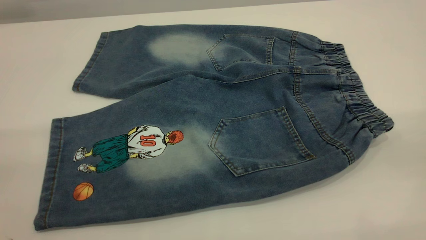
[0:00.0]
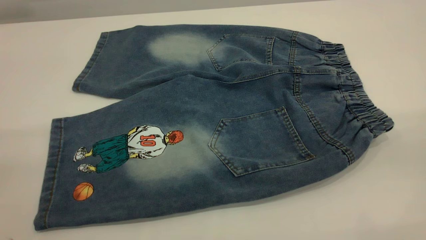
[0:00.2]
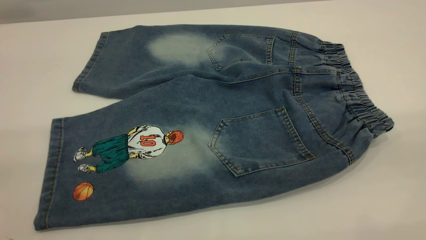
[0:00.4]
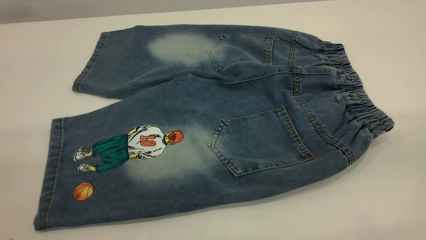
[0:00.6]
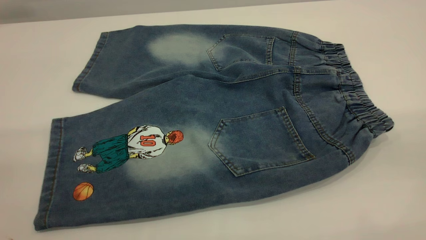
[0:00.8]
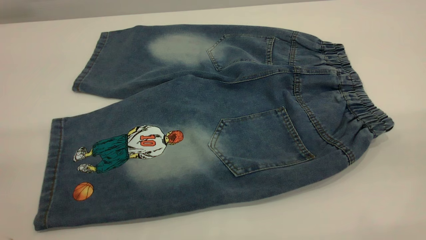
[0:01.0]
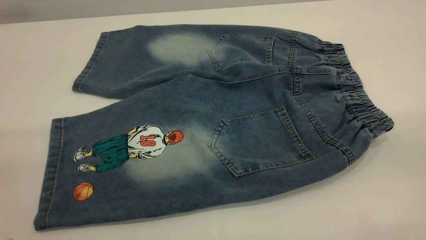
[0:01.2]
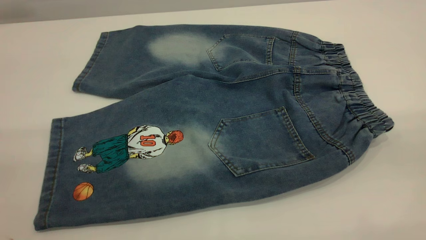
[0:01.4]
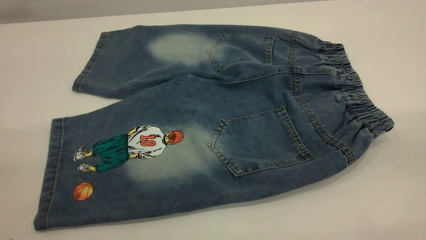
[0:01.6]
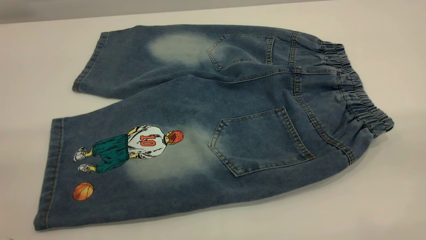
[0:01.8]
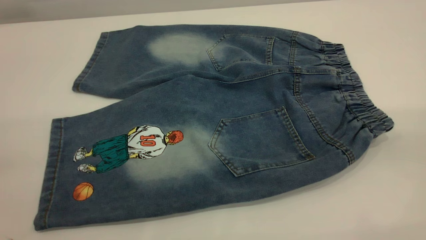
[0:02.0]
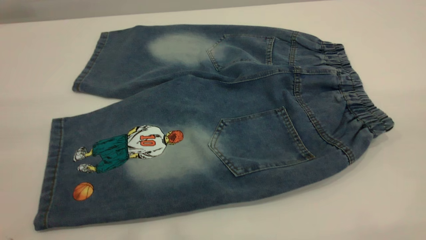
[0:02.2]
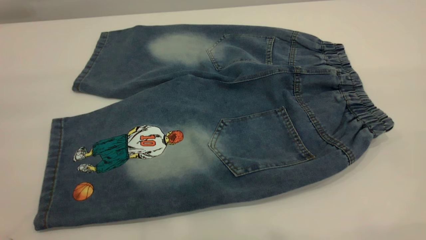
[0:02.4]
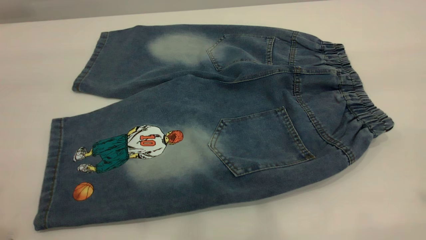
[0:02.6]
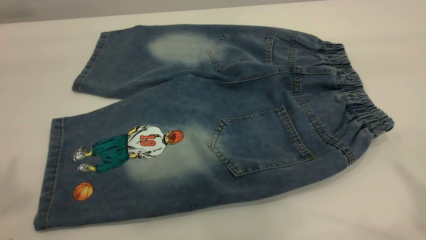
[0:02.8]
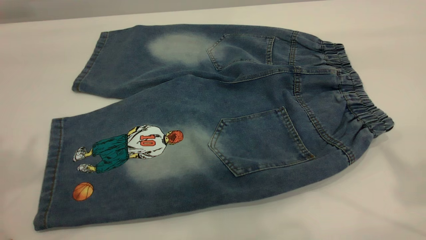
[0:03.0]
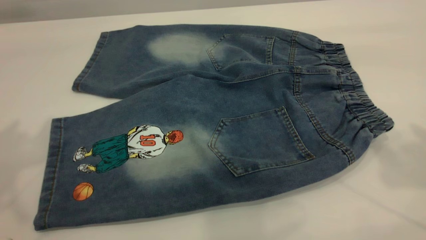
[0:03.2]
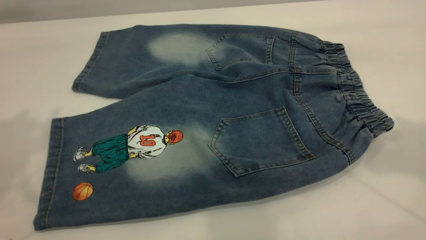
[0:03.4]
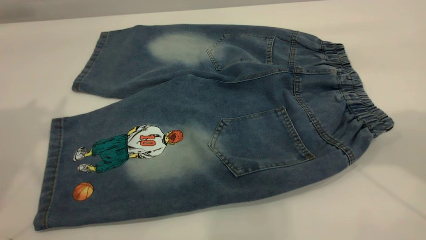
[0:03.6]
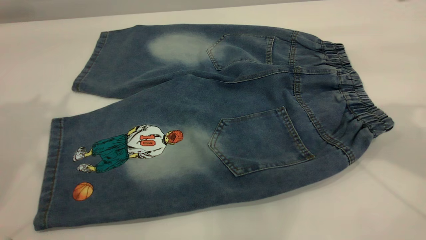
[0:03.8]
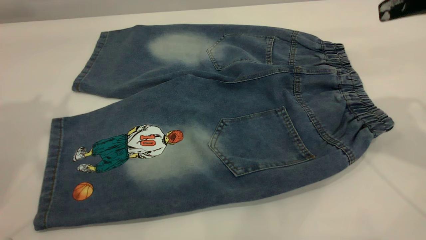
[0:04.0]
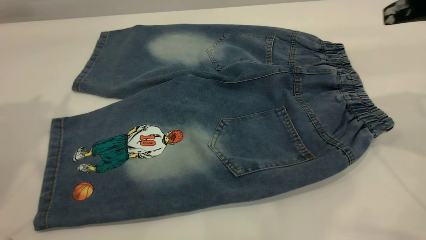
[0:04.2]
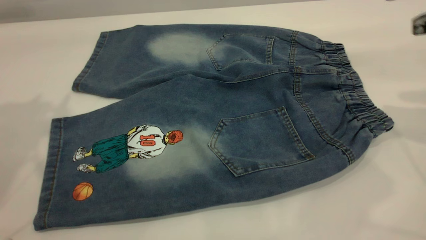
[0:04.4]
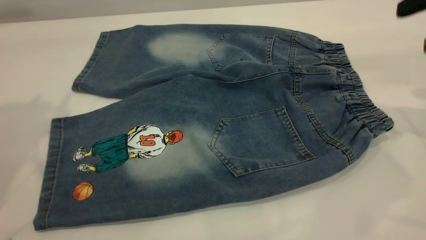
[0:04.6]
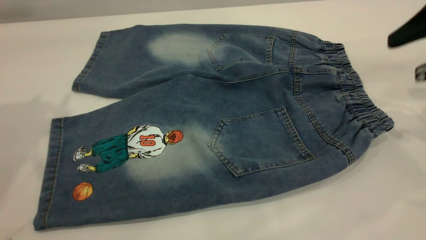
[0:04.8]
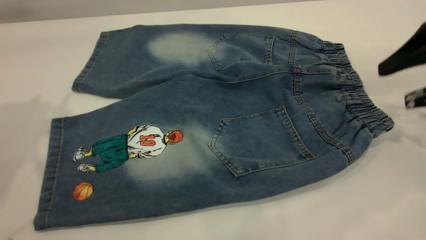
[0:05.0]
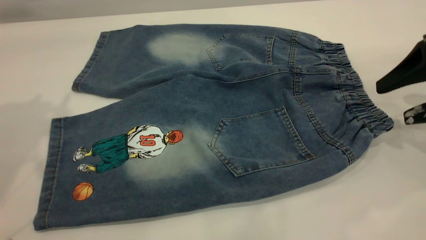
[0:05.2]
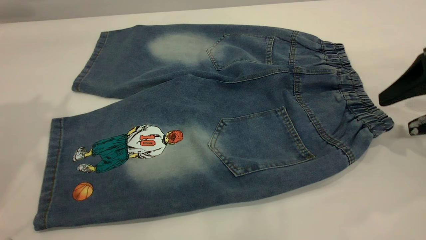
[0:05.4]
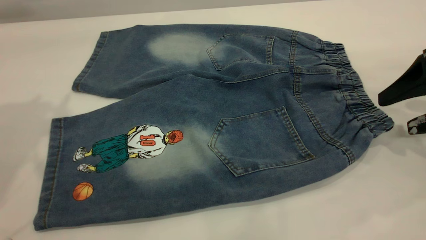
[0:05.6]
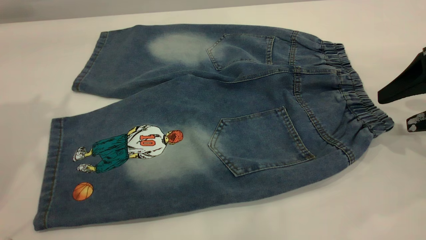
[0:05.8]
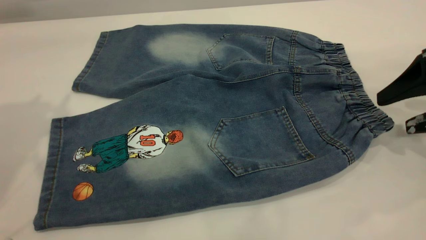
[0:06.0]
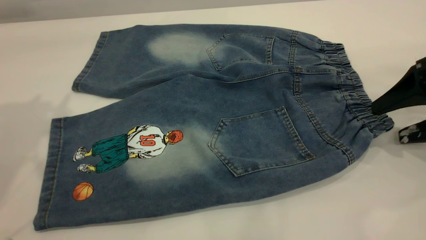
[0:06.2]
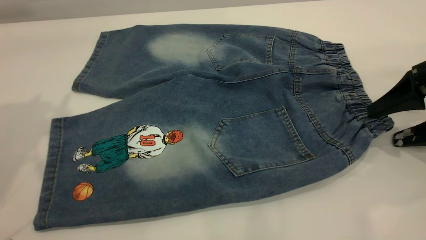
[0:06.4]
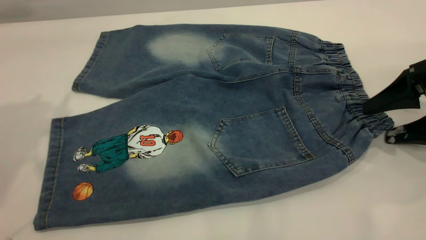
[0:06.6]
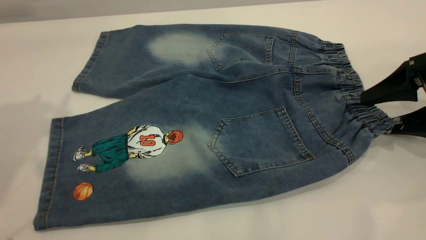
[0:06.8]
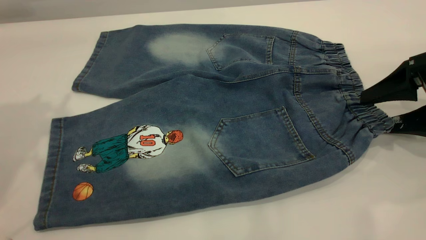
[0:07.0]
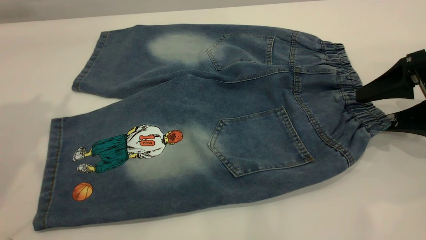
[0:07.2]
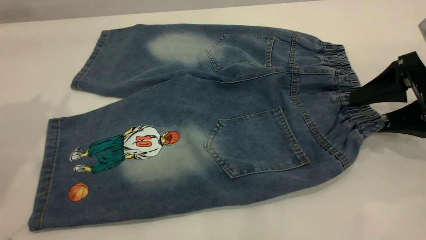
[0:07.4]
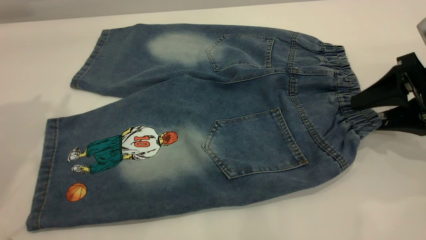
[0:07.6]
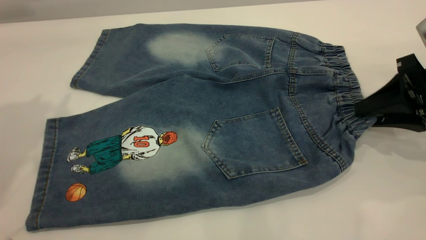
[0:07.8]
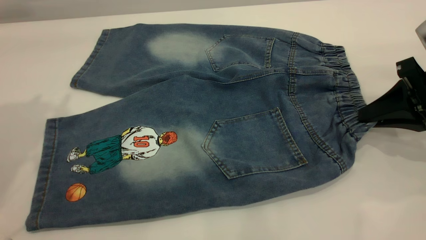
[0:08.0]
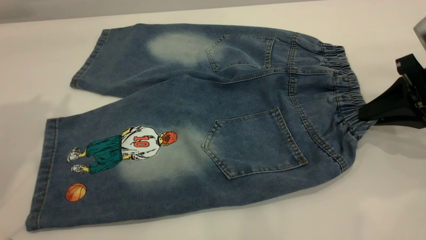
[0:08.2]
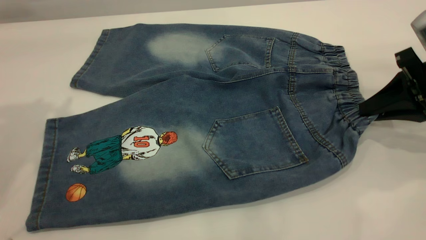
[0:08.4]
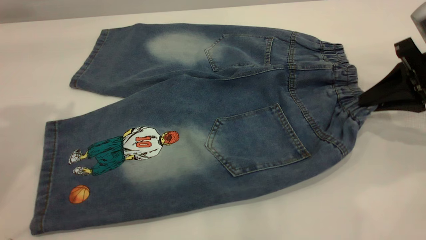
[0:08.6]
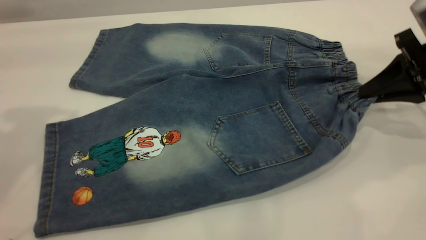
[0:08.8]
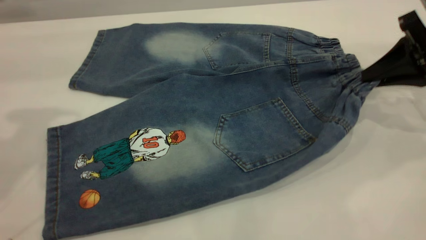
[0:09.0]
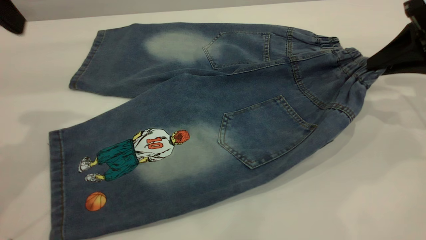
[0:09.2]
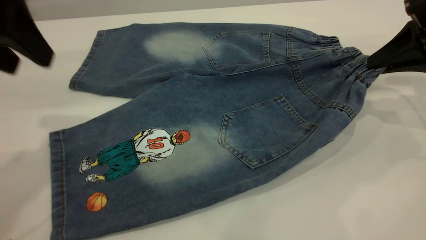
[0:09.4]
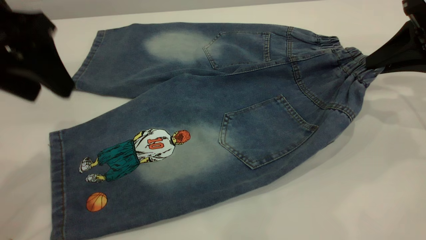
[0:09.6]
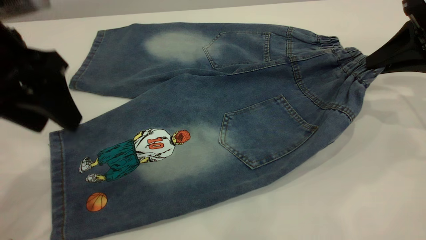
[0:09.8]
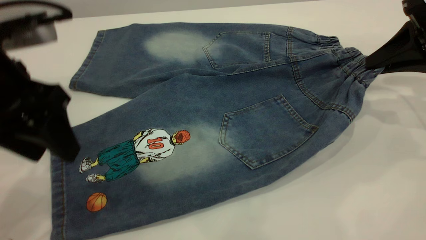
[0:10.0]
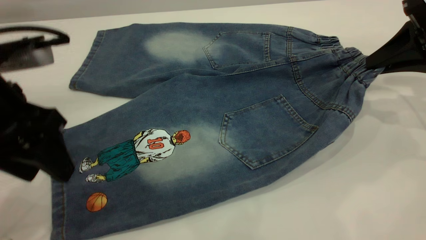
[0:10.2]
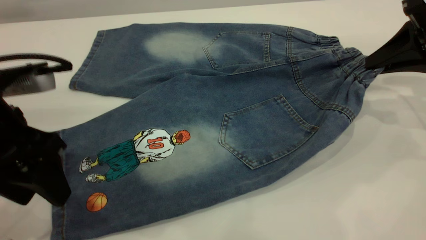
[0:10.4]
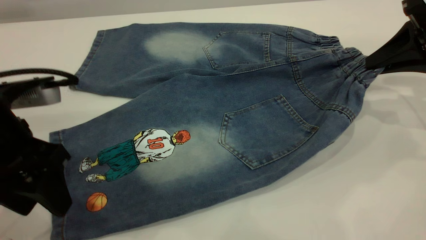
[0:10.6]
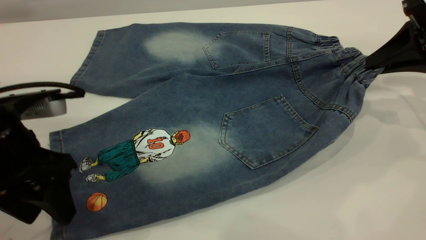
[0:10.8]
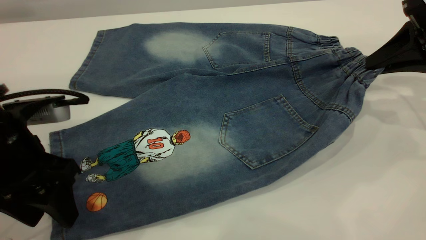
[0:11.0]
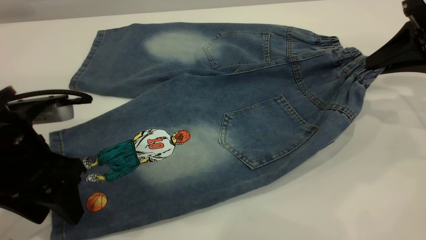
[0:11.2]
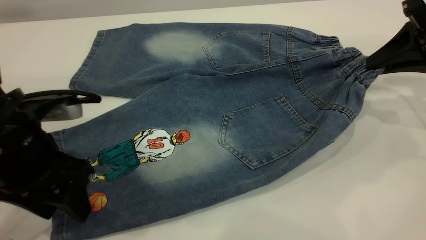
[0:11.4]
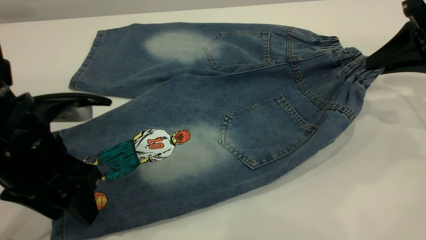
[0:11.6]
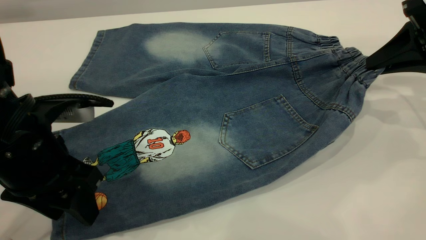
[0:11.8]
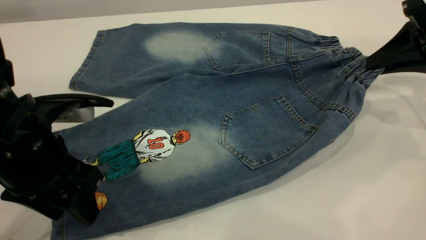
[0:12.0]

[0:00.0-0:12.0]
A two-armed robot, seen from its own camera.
0:00.0 to 0:01.6: Neither gripper changes place.
0:03.0 to 0:04.4: The right gripper travels downward and forward by about 20 cm, while the left gripper moves forward and downward, roughly 10 cm.
0:04.4 to 0:06.0: The right gripper goes roughly 10 cm downward.
0:06.0 to 0:07.6: The right gripper closes its fingers.
0:07.6 to 0:09.0: The left gripper goes roughly 5 cm downward. The right gripper moves approximately 5 cm, and closes.
0:09.0 to 0:10.4: The left gripper travels downward and backward by approximately 15 cm.
0:10.4 to 0:12.0: The grippers make only small movements.

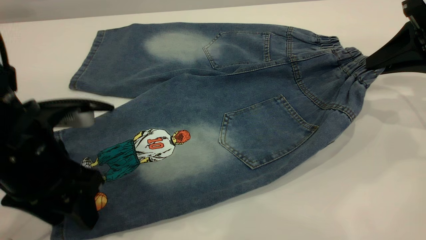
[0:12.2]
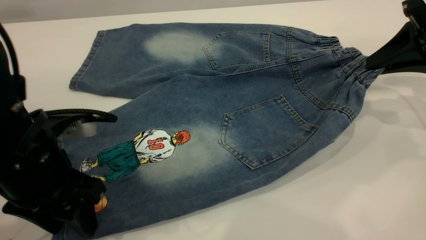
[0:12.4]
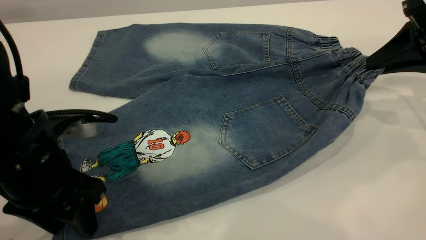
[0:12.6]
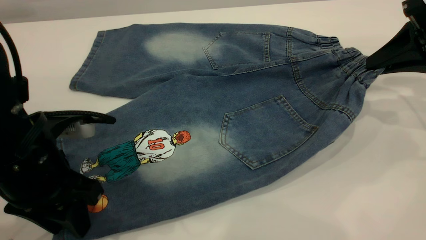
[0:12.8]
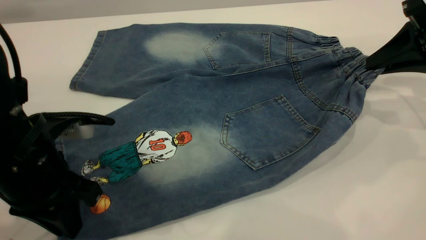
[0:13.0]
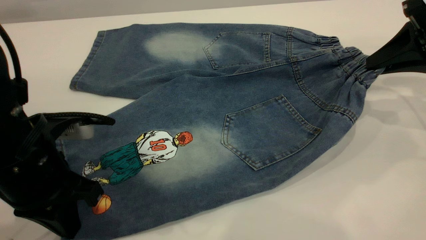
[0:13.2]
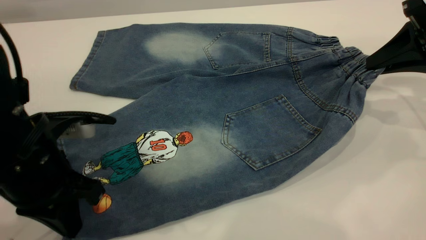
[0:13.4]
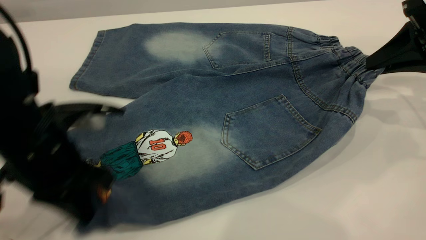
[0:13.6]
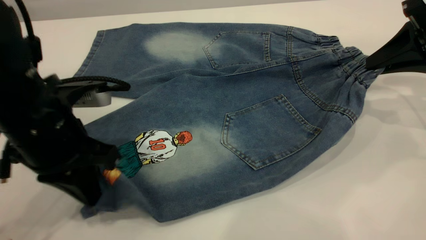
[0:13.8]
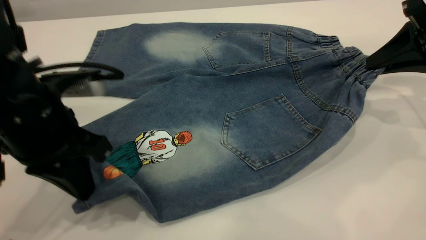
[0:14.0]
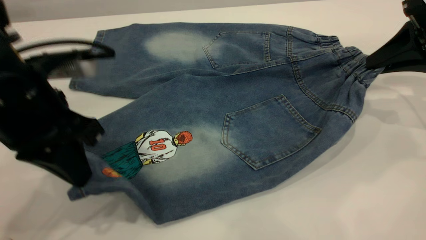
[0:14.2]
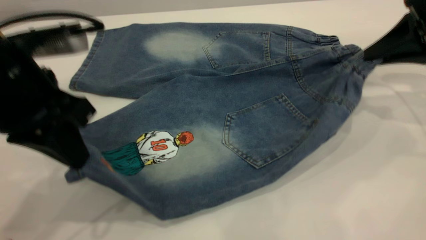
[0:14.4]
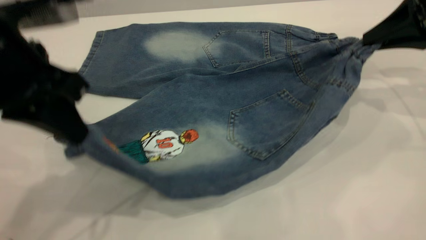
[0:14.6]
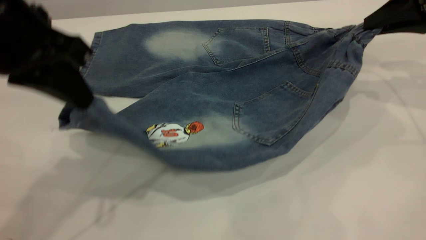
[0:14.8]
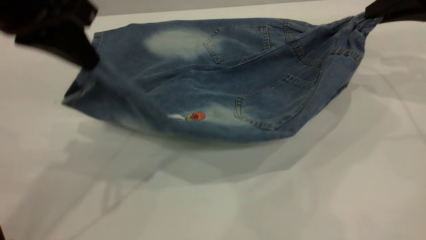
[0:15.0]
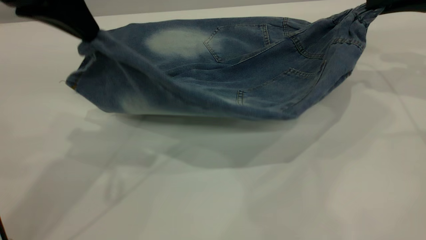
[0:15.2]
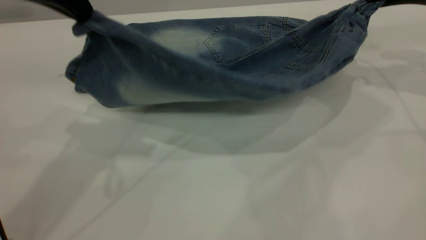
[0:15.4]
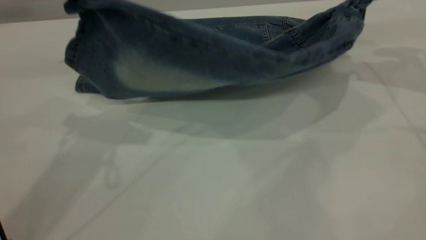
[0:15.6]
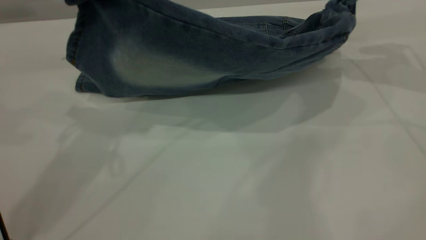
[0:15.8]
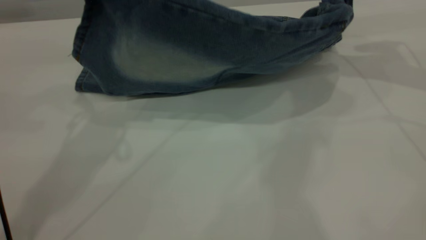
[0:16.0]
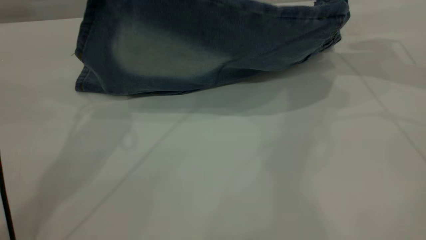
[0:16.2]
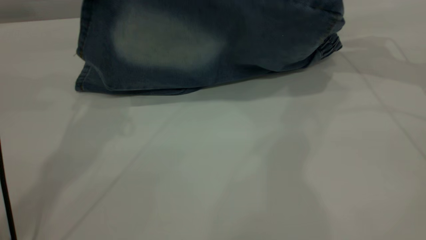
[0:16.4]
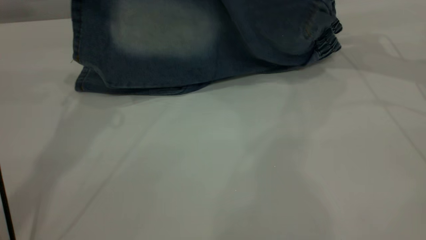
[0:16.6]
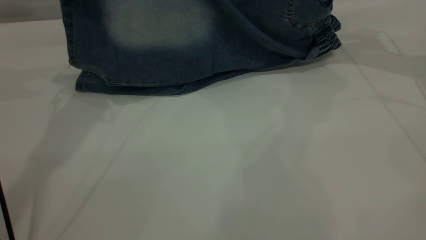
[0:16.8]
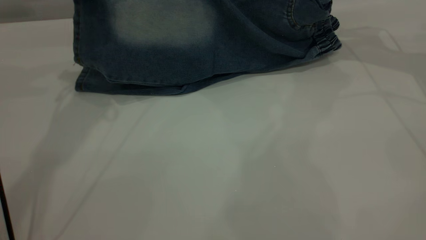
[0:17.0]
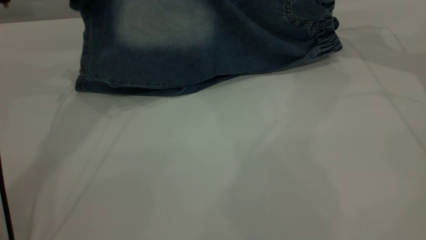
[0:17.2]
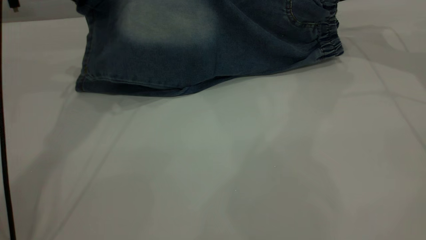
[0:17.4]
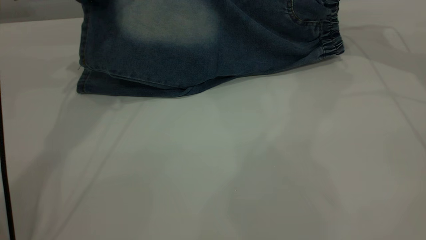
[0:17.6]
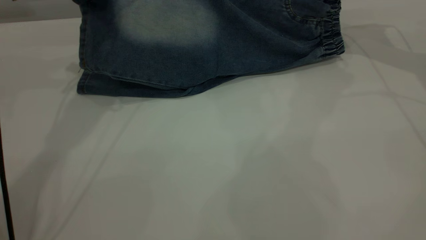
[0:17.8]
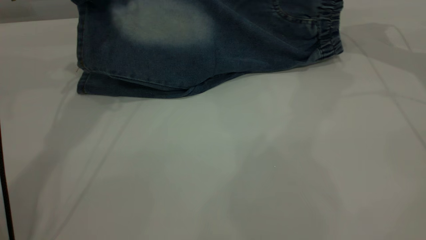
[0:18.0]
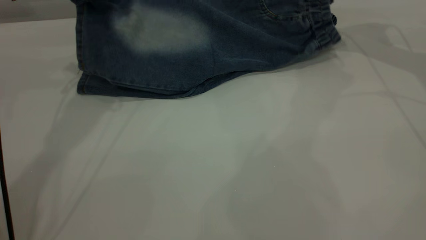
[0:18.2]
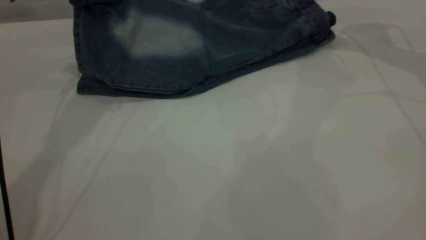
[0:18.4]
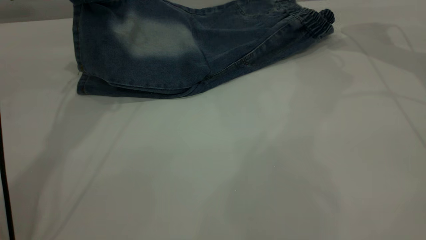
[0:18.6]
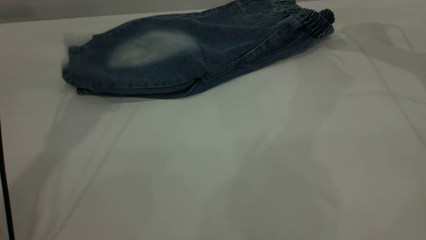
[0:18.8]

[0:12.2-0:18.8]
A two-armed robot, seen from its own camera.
Step, 0:12.2 to 0:18.8: Fold the bottom of the pants upward.
0:12.2 to 0:13.8: The left gripper closes up.
0:13.8 to 0:15.4: The left gripper shifts some 15 cm upward. The right gripper shifts about 10 cm forward and upward.
0:15.4 to 0:17.2: The right gripper is displaced forward by roughly 10 cm; the left gripper is displaced forward by some 15 cm.
0:17.2 to 0:18.8: The left gripper opens its fingers. Meanwhile the right gripper opens its fingers.
